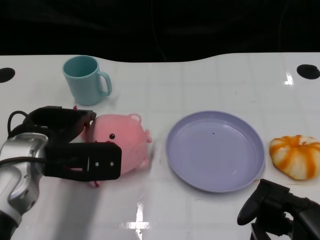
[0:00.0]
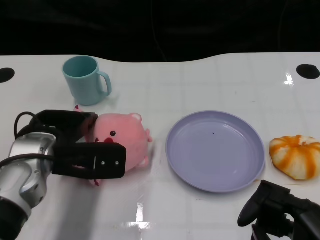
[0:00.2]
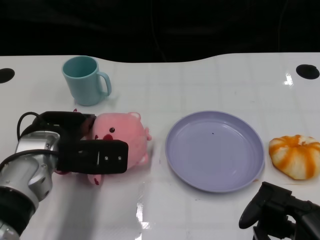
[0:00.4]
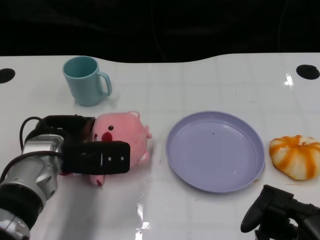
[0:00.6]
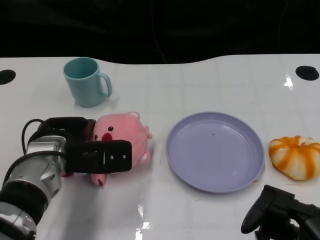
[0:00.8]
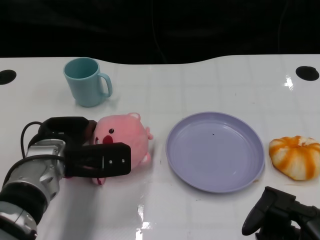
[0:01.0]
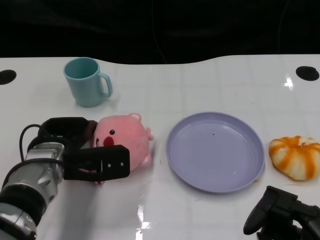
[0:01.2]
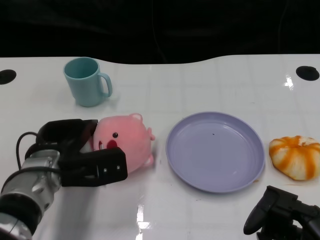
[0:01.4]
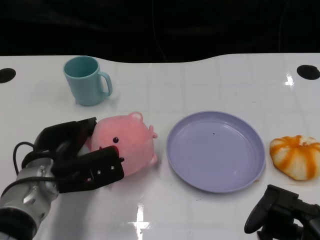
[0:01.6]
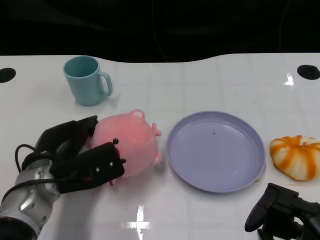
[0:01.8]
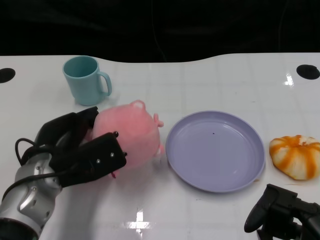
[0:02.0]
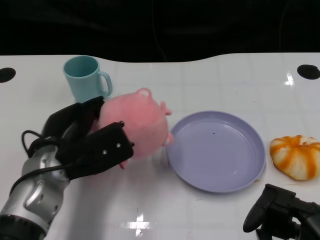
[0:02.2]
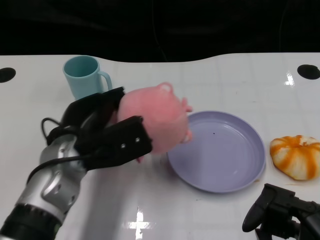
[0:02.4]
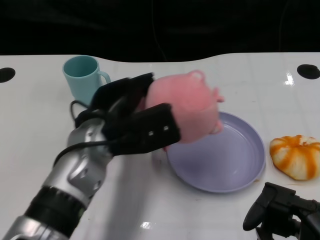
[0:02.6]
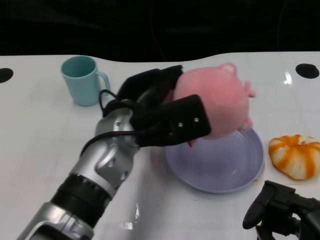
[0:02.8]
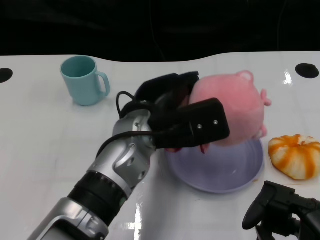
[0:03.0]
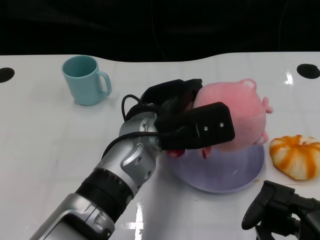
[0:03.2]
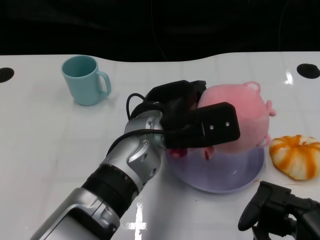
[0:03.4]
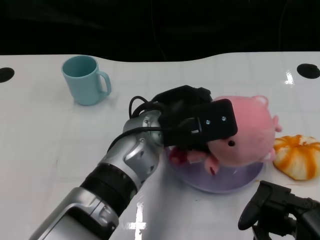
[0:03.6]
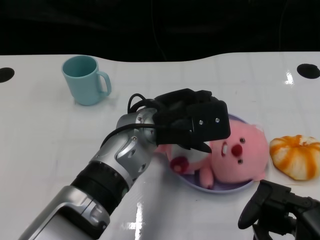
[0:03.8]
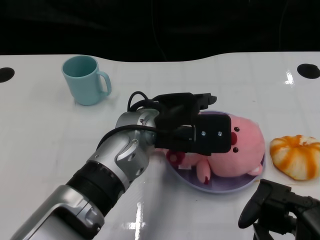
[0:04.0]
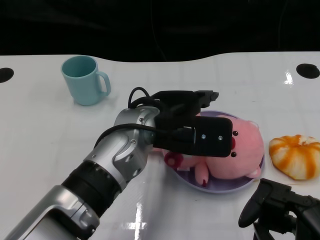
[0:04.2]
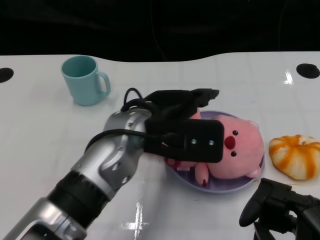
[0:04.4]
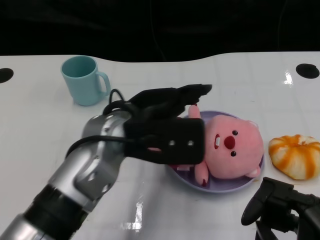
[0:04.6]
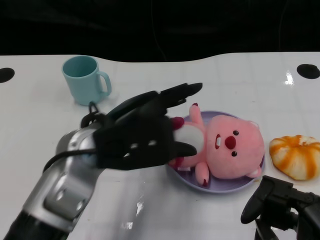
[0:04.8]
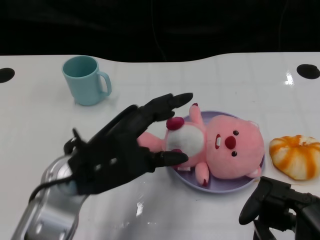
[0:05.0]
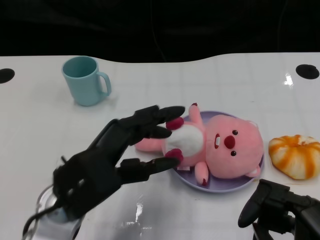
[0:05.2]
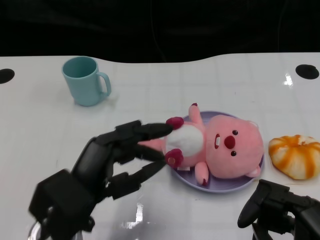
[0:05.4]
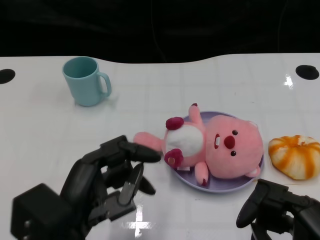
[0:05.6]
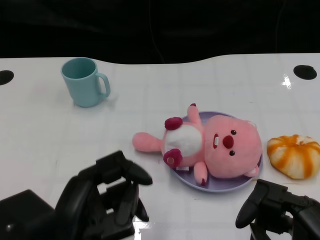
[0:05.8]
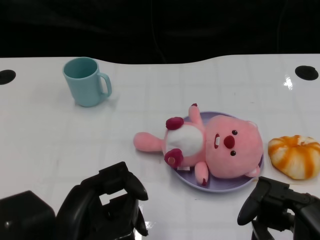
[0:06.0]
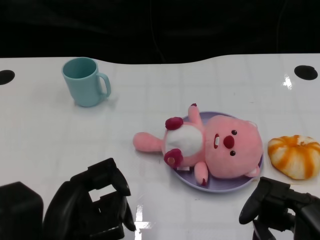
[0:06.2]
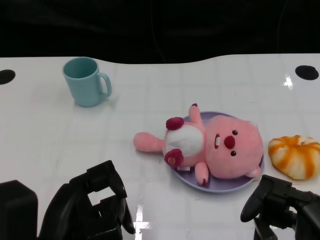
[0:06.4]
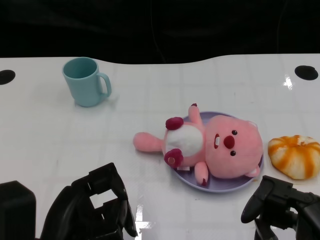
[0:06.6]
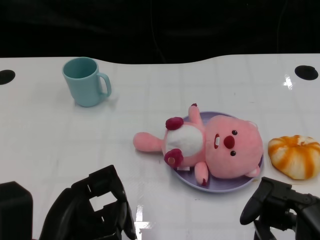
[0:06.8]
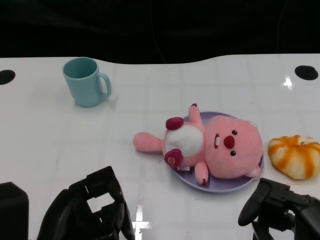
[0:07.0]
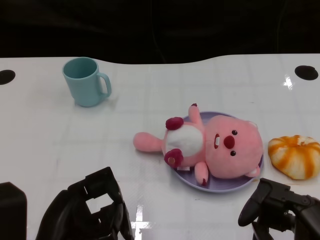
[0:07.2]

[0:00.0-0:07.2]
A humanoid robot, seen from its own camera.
Task of the whole recording: Pick up the doll on one side of the plate and place it into the plate.
Step, 0:02.0 to 0:04.2: Place the pink doll into the plate with the left gripper.
0:00.0 to 0:01.4: The left hand shifts approximately 5 cm downward.
0:01.4 to 0:02.8: The left hand moves to the right and upward, approximately 15 cm.
0:04.4 to 0:05.8: The left hand goes about 20 cm backward and to the left.
0:05.8 to 0:07.2: The hands move only a little.

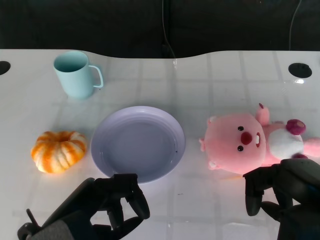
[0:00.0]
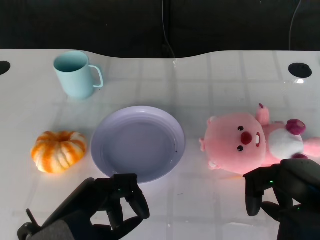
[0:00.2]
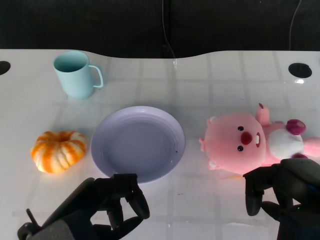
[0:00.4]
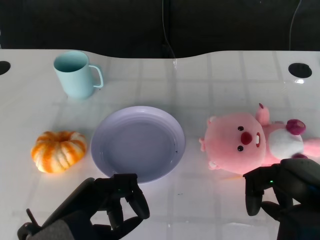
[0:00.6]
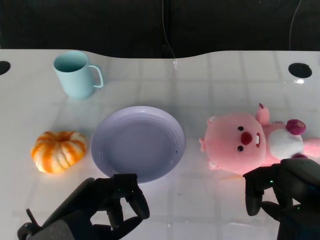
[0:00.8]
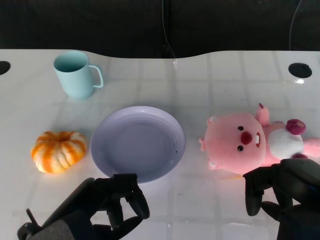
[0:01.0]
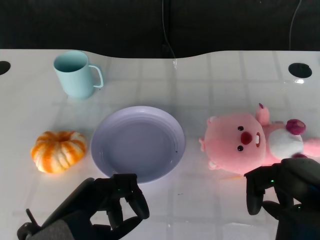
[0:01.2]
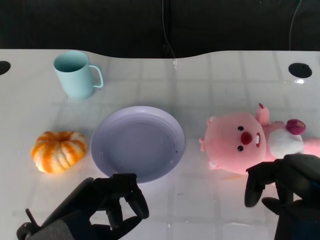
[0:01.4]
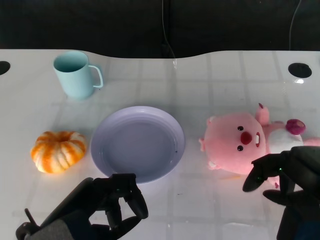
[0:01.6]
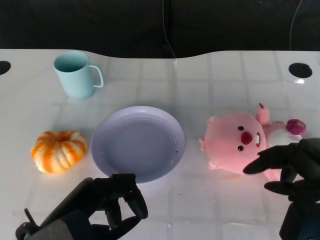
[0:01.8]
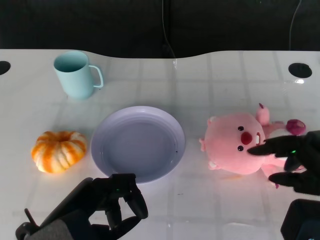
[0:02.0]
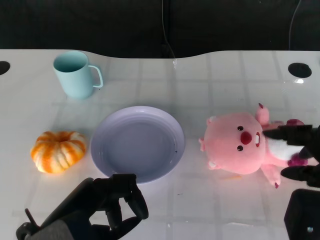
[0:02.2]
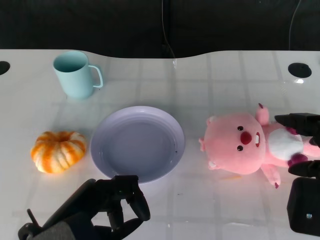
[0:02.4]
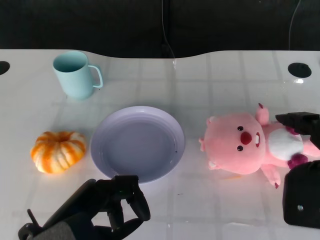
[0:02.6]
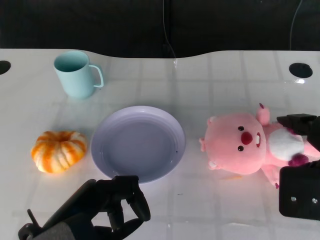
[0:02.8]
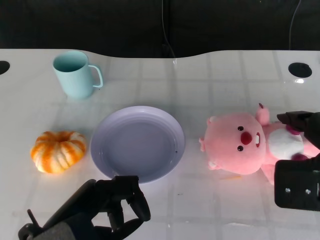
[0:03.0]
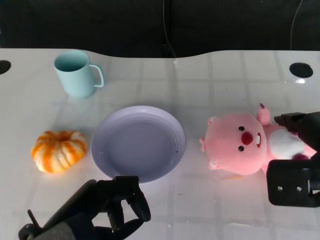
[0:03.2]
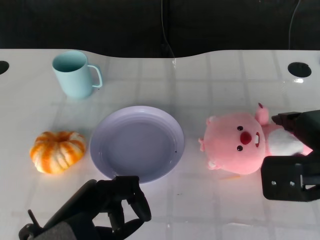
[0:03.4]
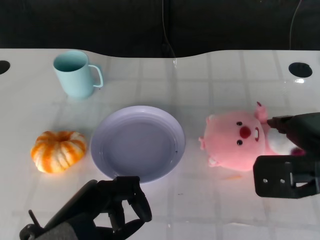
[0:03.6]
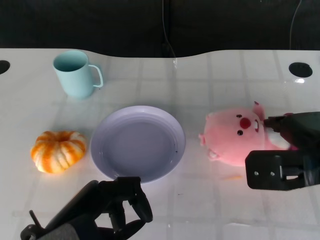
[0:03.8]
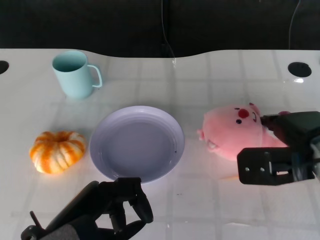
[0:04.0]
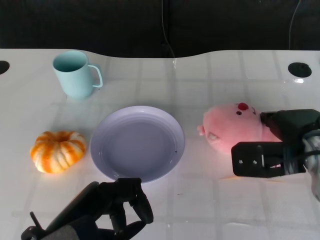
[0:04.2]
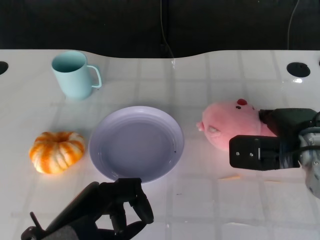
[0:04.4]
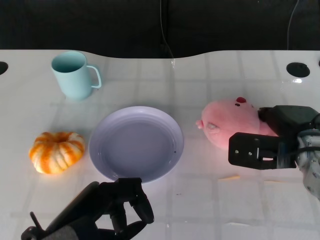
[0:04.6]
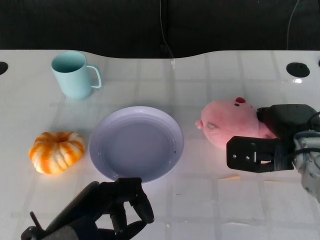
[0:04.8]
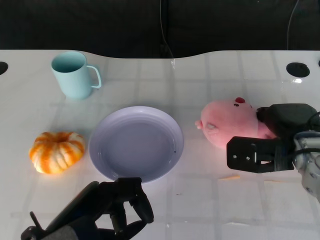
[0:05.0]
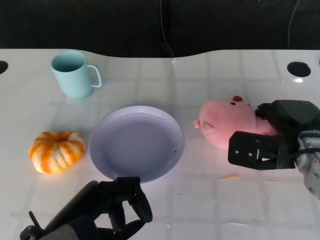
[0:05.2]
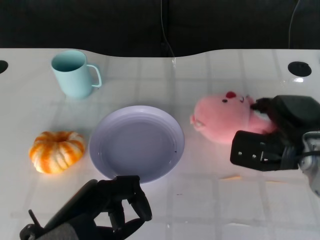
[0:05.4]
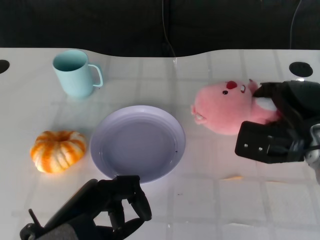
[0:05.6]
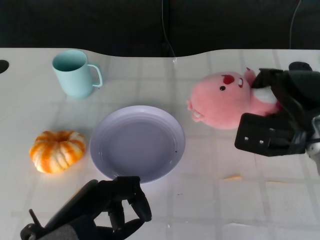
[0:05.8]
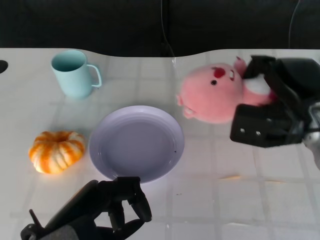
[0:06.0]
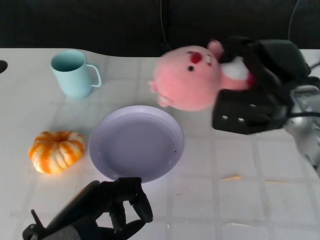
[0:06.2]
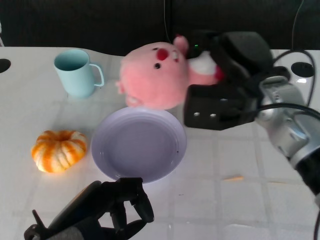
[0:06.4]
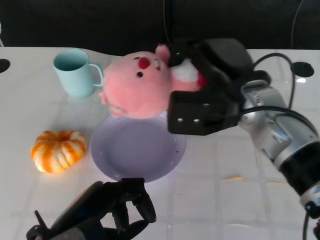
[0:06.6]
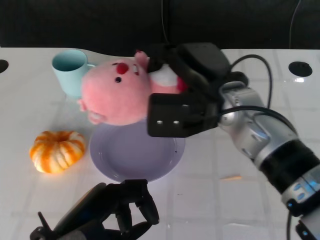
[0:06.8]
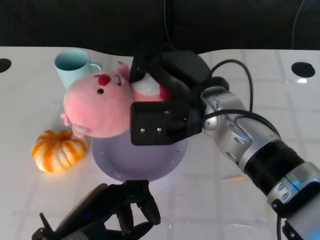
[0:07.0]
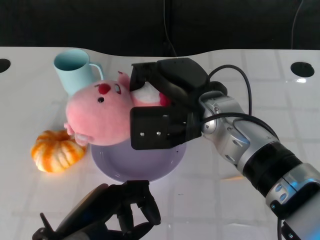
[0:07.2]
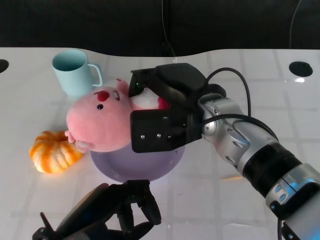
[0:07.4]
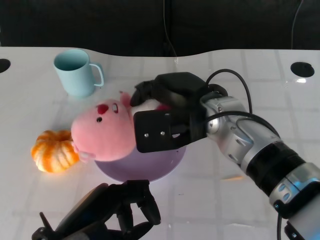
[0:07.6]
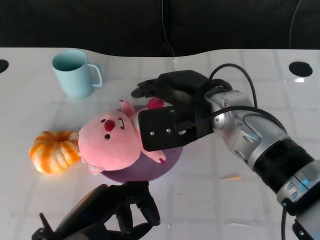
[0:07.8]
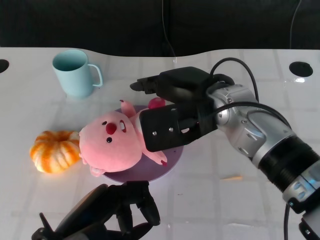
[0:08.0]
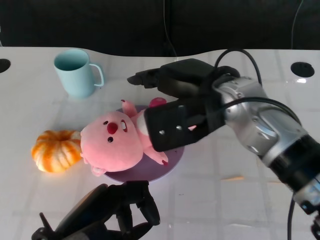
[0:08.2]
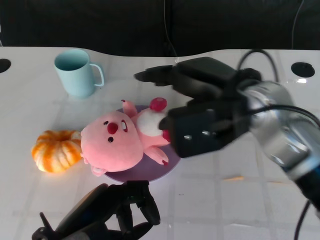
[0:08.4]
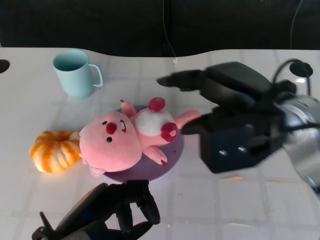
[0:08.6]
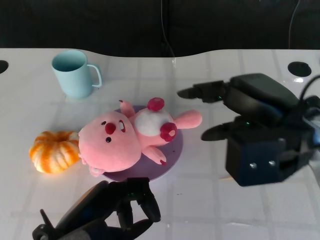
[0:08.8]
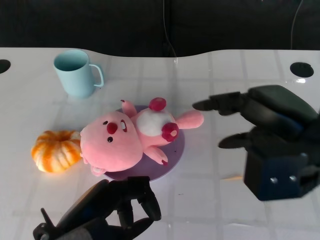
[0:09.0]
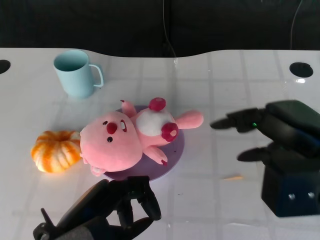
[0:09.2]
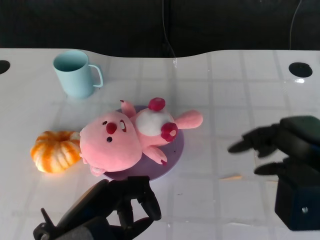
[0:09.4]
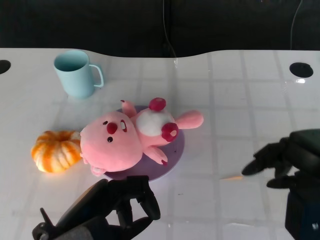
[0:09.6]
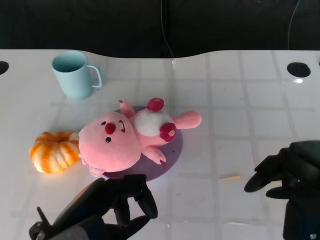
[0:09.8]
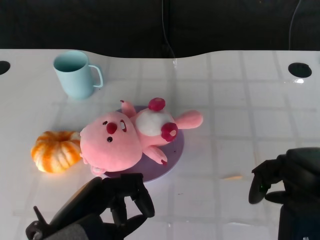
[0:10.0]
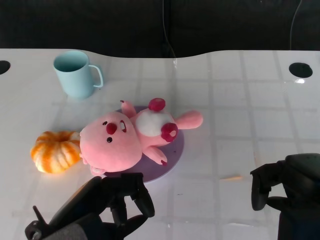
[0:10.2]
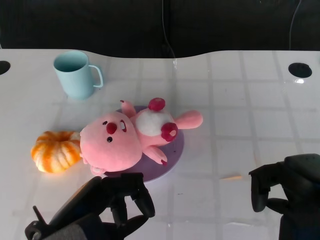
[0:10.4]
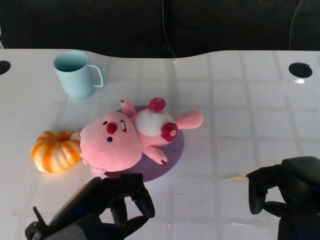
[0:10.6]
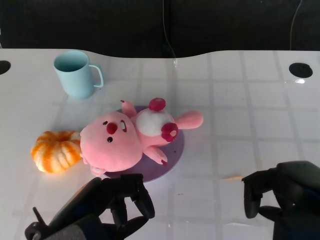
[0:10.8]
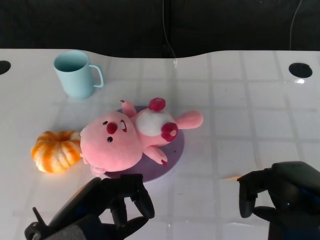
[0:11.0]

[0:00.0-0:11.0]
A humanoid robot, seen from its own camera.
Task of the whole recording: Pick up the doll on the other side of the plate and place it into the plate.
Step, 0:01.2 to 0:05.4: Grasp the pink doll with the right gripper.
Step, 0:05.6 to 0:08.2: Place the pink doll into the plate with the right gripper.
0:01.6 to 0:03.2: The right hand ends up about 5 cm from where it was.
0:03.2 to 0:04.8: The right hand moves downward and forward, some 10 cm.
0:04.8 to 0:06.2: The right hand is displaced upward by about 10 cm.
0:06.2 to 0:07.8: The right hand heads to the left, covering approximately 10 cm.
0:07.8 to 0:09.4: The right hand heads to the right and backward, covering about 20 cm.
0:09.4 to 0:11.0: The right hand travels downward by about 5 cm.

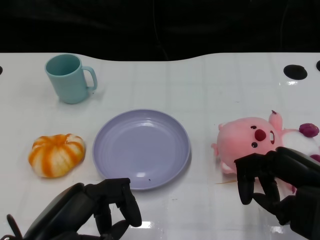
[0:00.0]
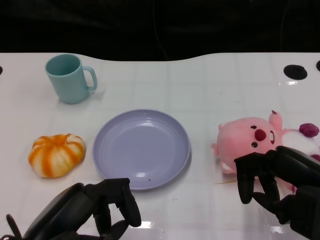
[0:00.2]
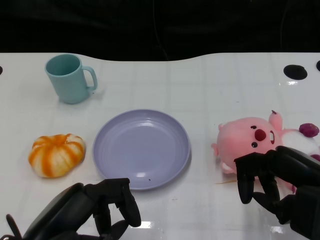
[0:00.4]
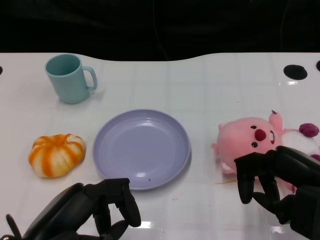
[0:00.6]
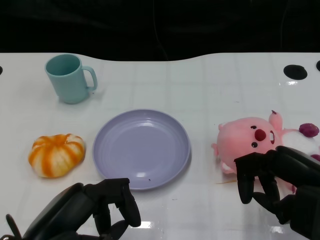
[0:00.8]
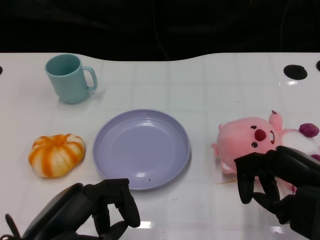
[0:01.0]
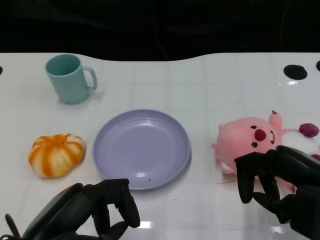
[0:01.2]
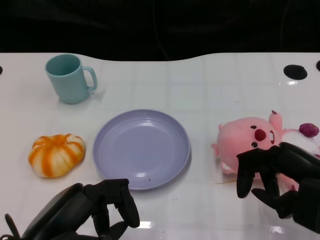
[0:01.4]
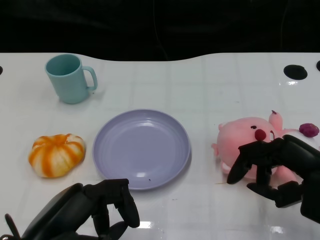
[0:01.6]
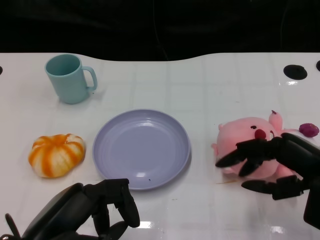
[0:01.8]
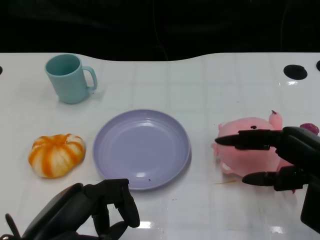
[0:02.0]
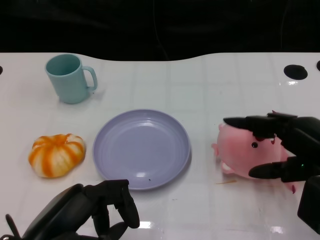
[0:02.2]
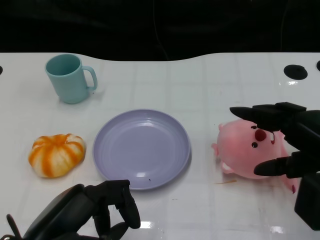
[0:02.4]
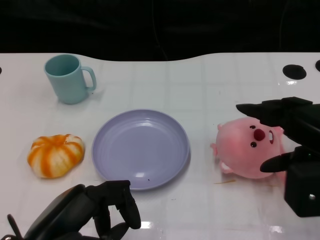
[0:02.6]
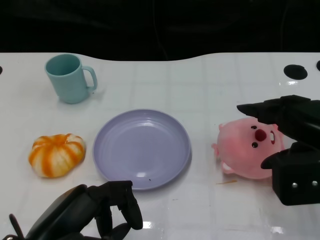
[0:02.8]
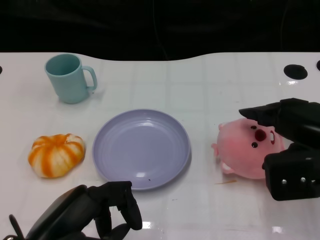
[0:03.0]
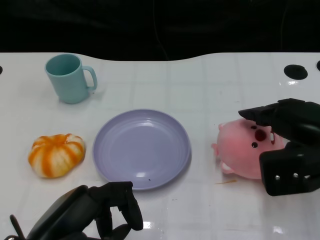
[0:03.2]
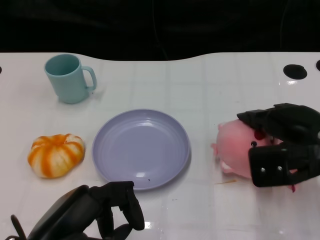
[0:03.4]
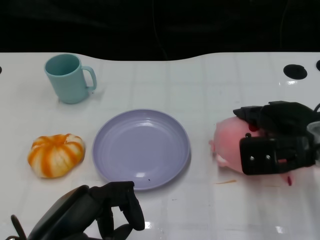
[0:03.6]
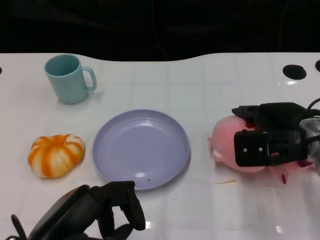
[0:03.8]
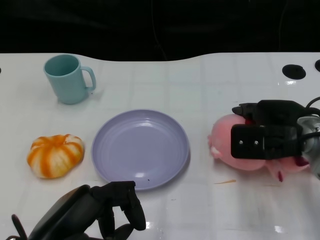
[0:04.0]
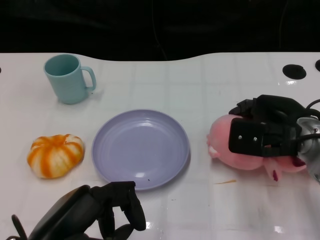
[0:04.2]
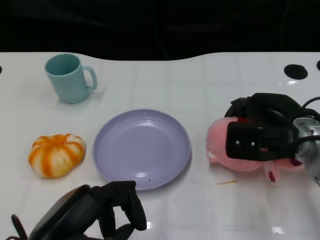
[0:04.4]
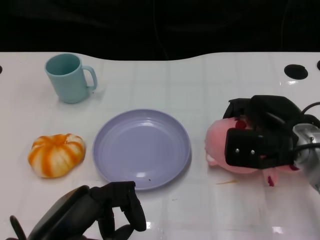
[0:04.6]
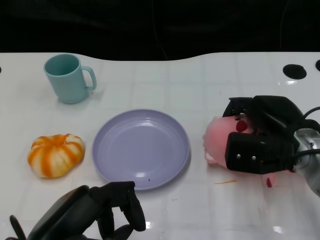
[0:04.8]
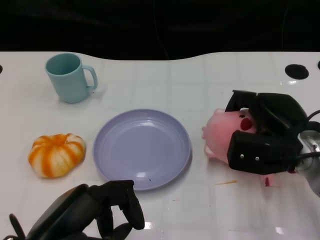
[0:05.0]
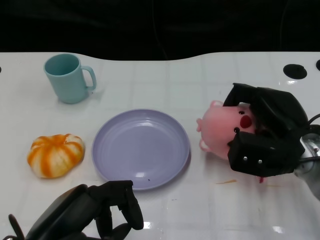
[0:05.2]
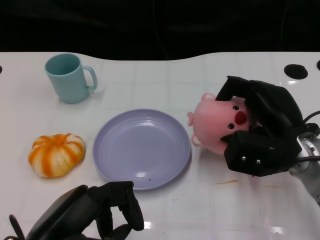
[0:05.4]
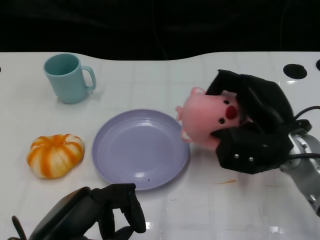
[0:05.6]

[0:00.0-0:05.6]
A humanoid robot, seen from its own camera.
Task of the whole recording: Pick up the doll on the other side of the plate and place it into the plate.
0:01.4 to 0:02.8: The right hand ends up roughly 5 cm from where it was.
0:02.8 to 0:04.2: The right hand shifts roughly 10 cm forward and downward.
